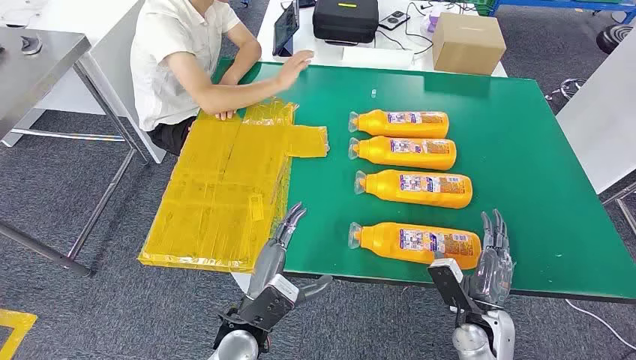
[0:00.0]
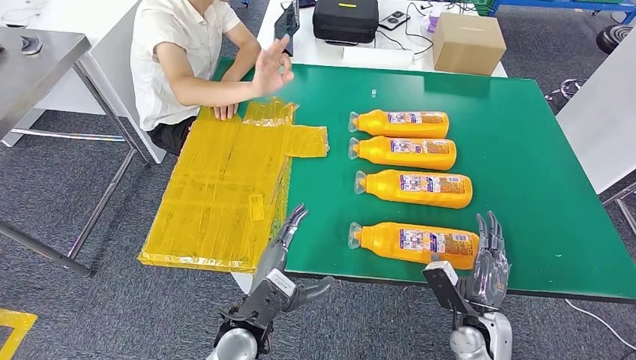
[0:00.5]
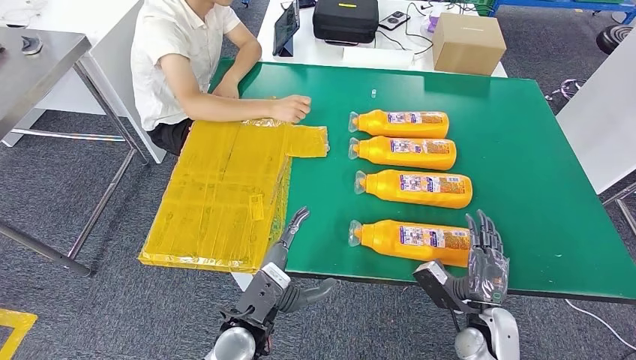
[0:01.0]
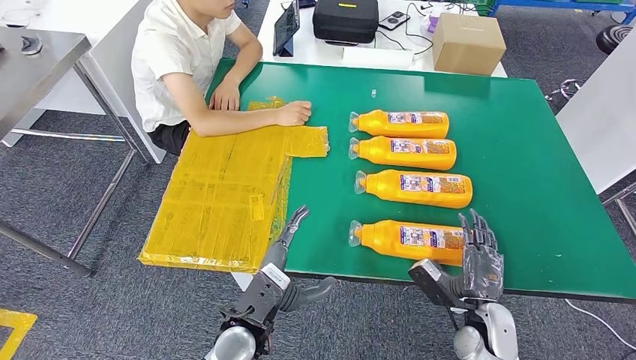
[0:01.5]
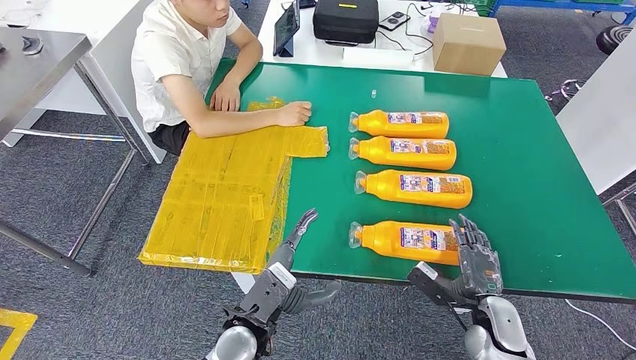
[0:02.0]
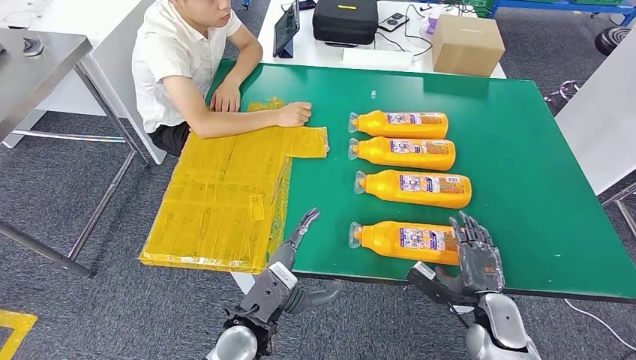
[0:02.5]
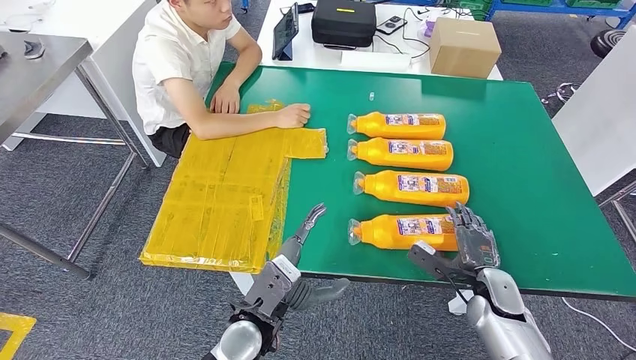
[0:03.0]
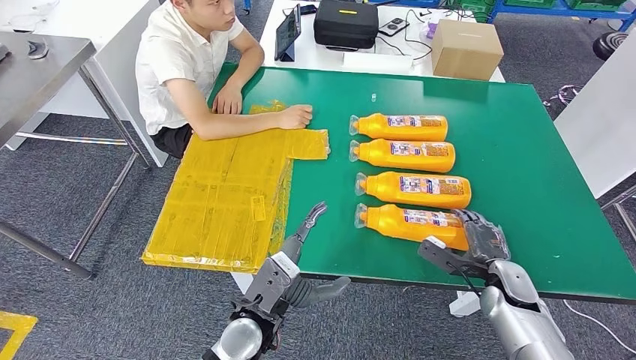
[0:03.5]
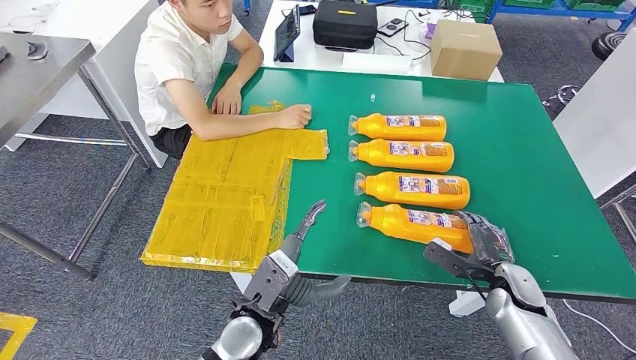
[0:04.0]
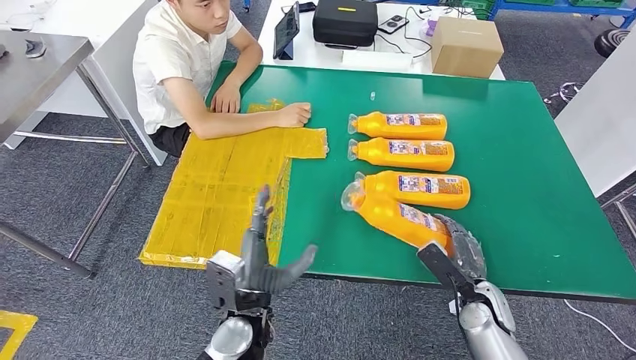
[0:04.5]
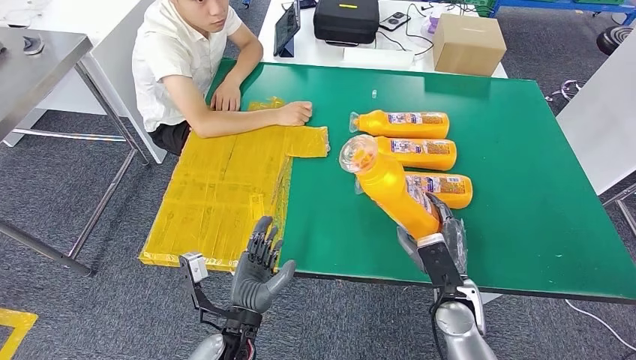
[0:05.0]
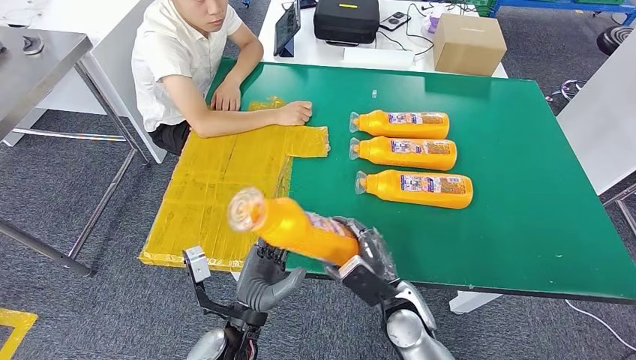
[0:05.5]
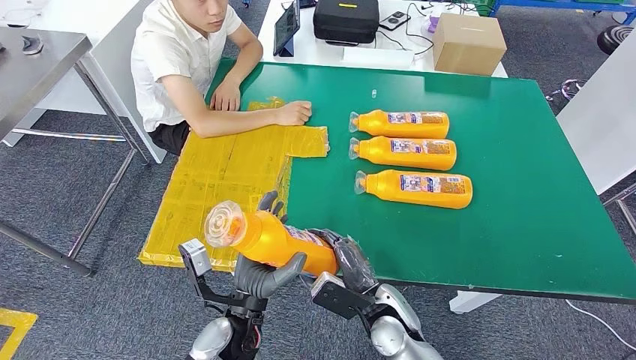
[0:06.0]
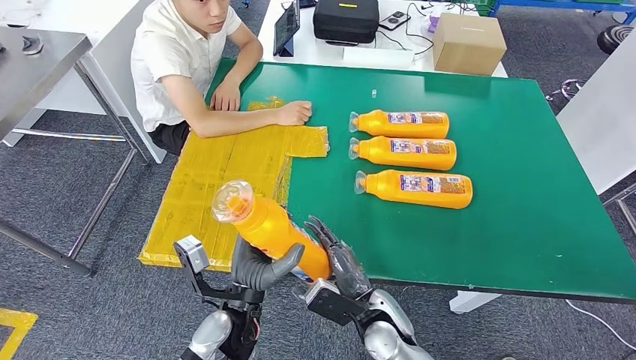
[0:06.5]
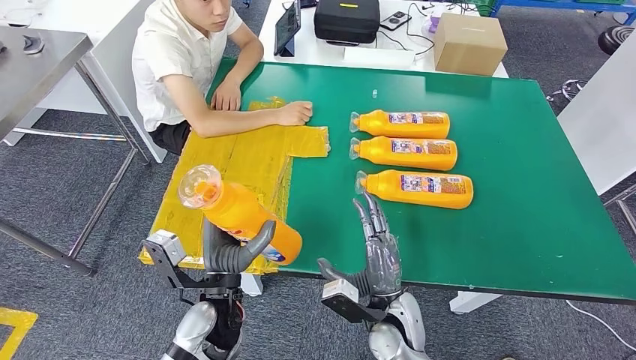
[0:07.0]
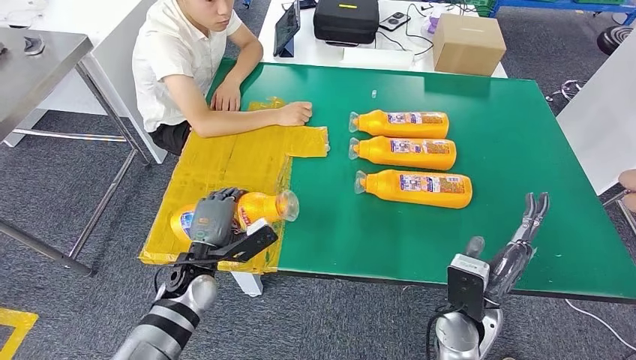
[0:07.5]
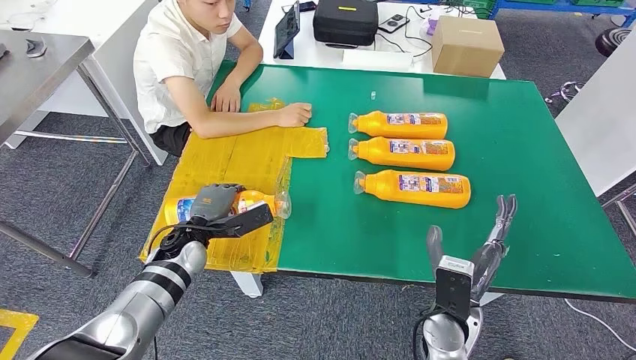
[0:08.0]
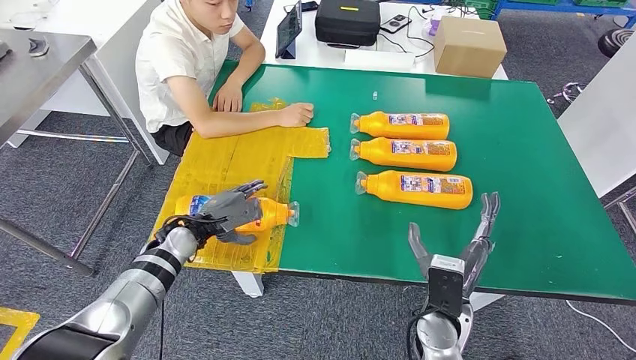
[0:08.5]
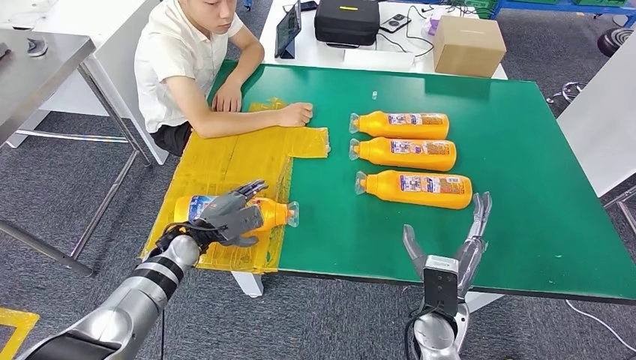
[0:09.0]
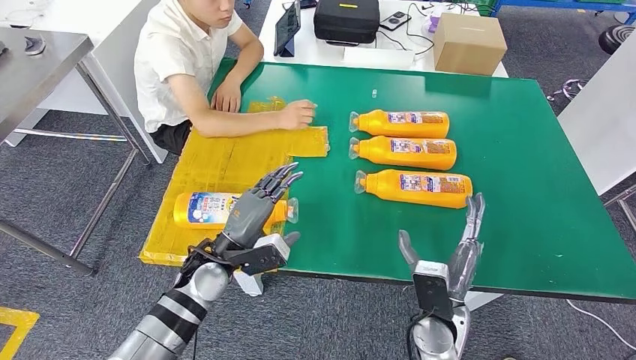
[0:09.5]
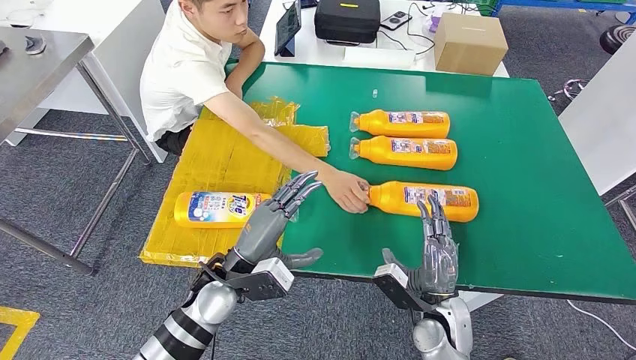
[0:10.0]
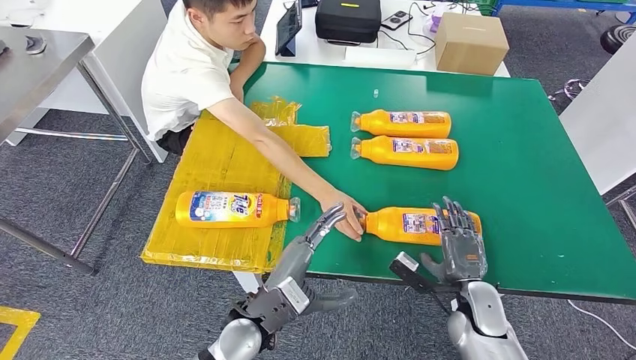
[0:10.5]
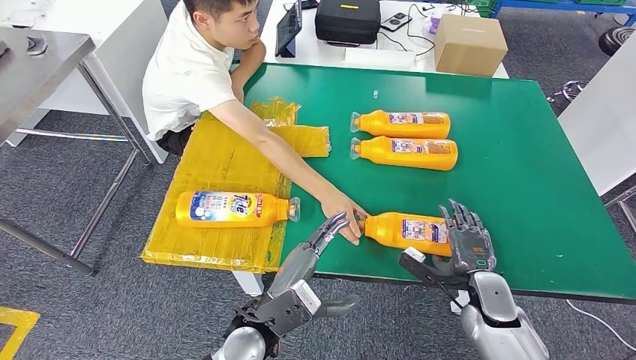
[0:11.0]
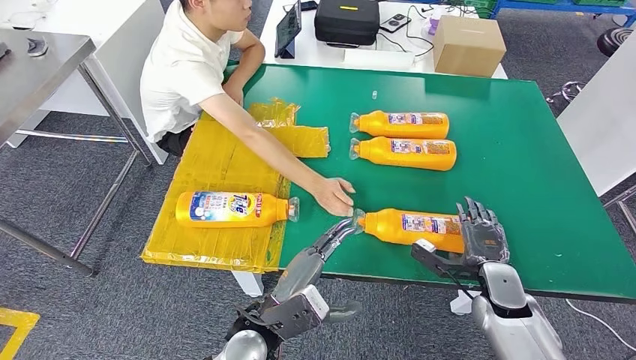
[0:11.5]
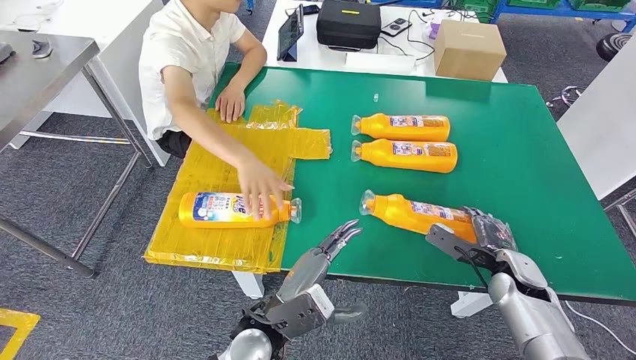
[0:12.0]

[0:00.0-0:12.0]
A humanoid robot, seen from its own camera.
Step, 0:00.0 to 0:05.5: Take the fast-moving consumer goods bottle from the table.
Step, 0:06.0 to 0:08.5: Flip the fast-moving consumer goods bottle to the front side.

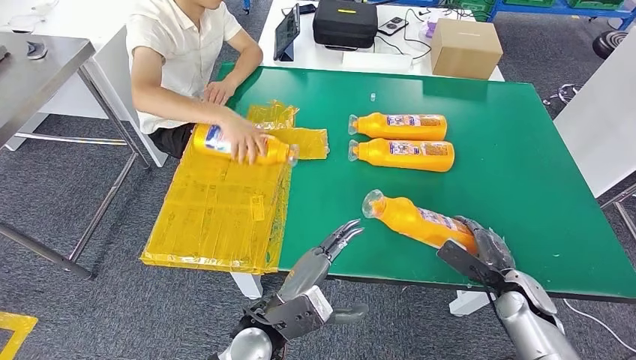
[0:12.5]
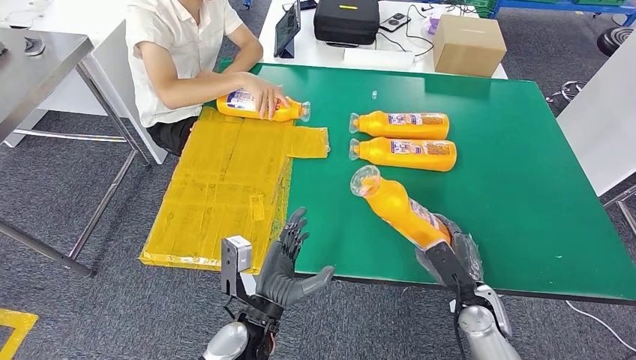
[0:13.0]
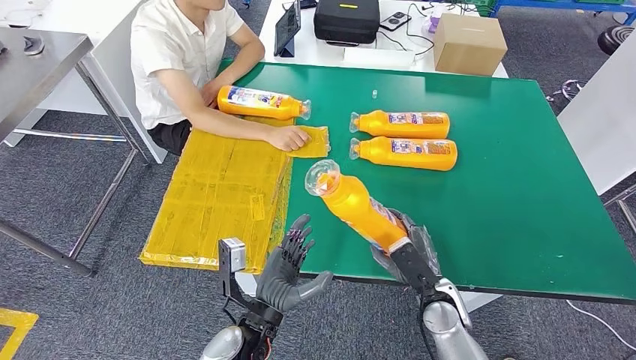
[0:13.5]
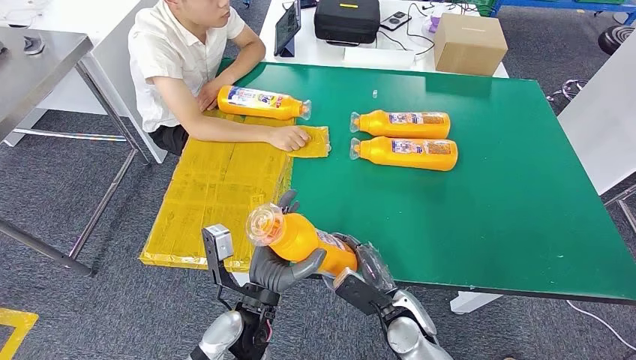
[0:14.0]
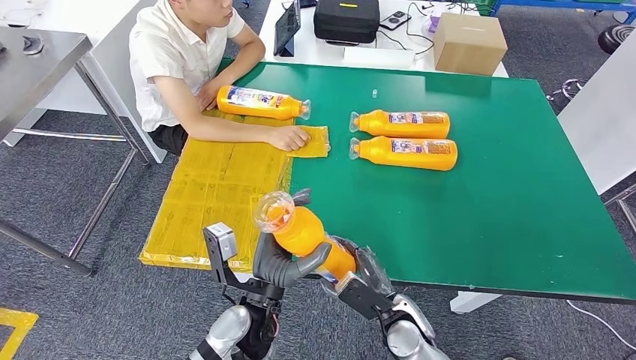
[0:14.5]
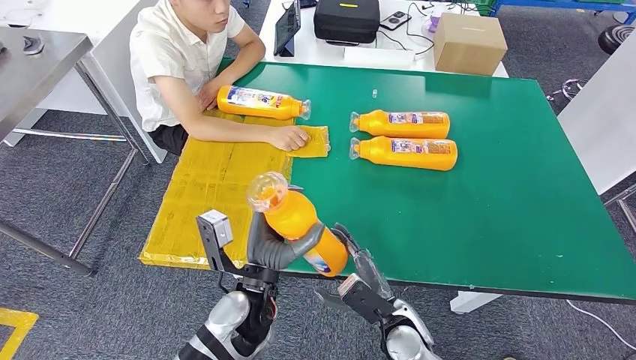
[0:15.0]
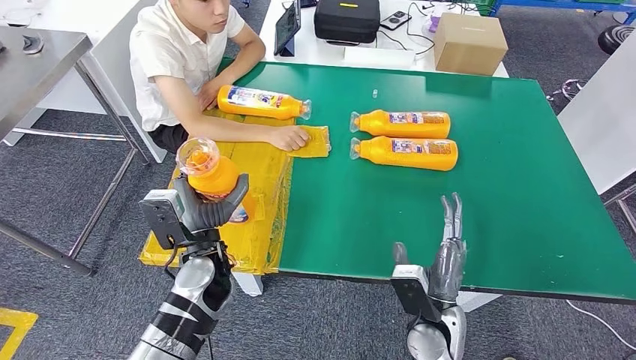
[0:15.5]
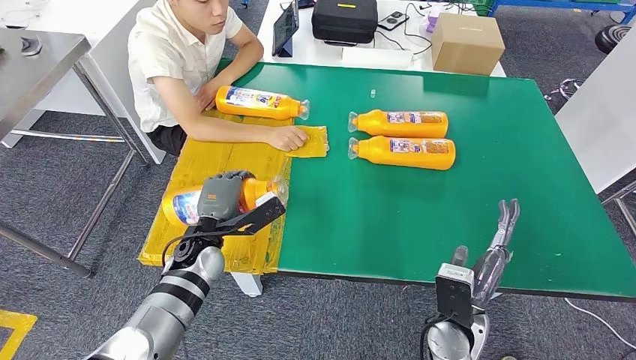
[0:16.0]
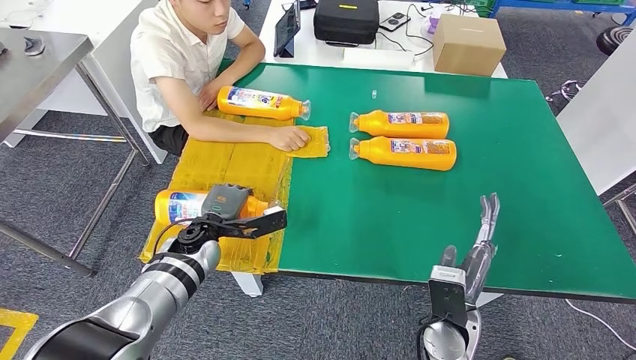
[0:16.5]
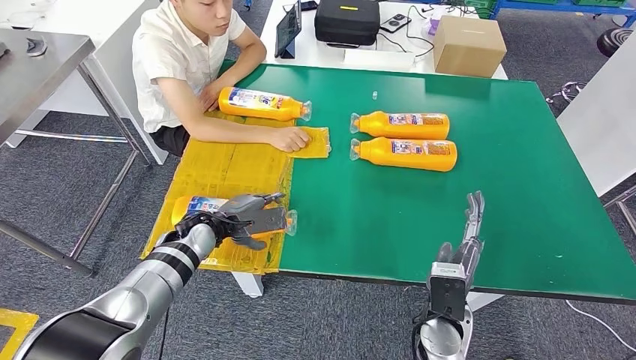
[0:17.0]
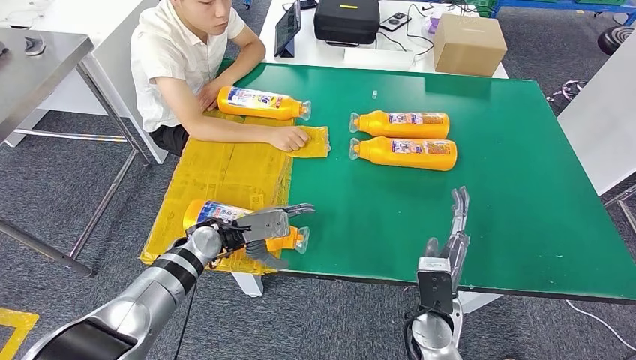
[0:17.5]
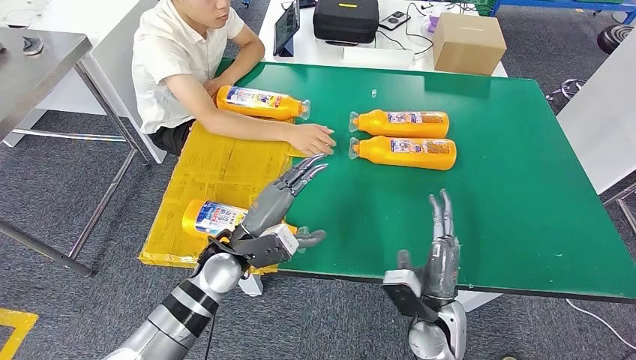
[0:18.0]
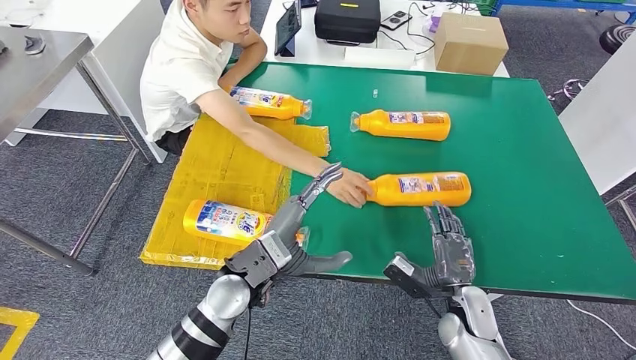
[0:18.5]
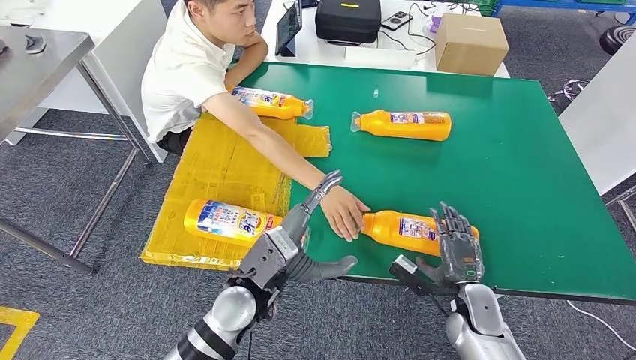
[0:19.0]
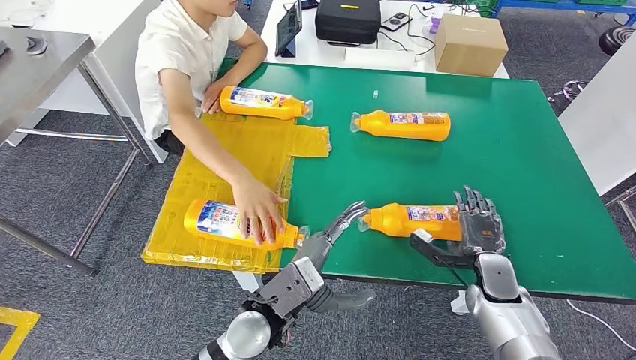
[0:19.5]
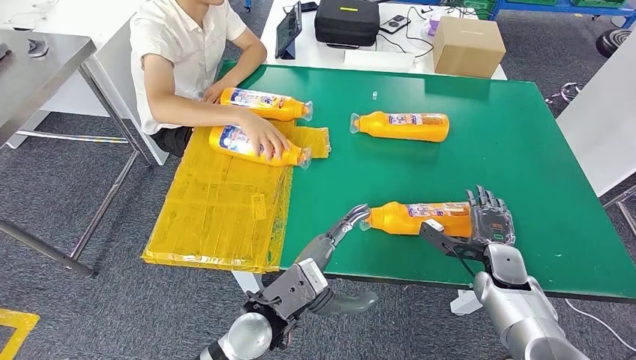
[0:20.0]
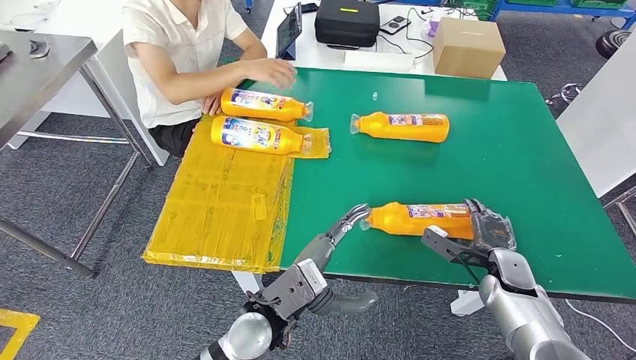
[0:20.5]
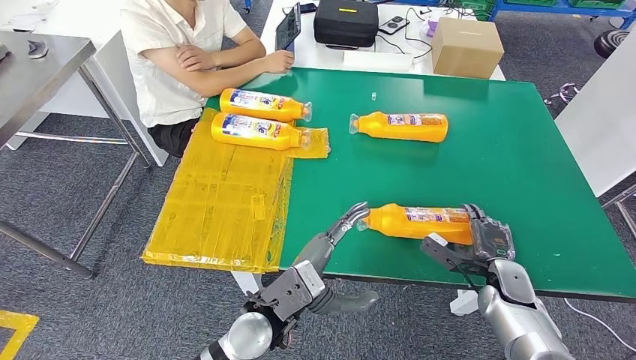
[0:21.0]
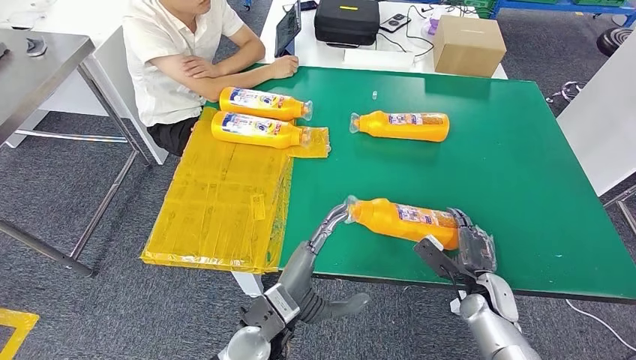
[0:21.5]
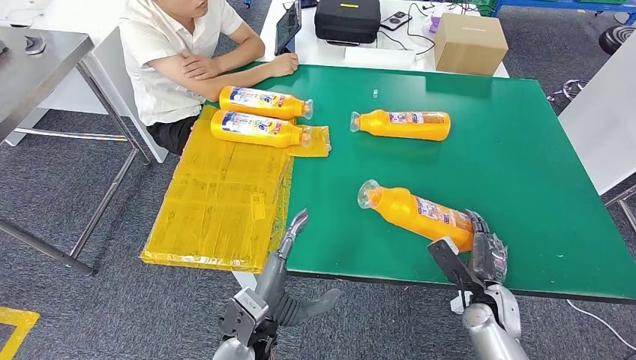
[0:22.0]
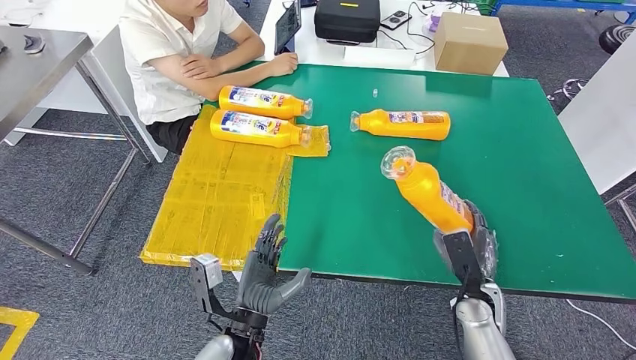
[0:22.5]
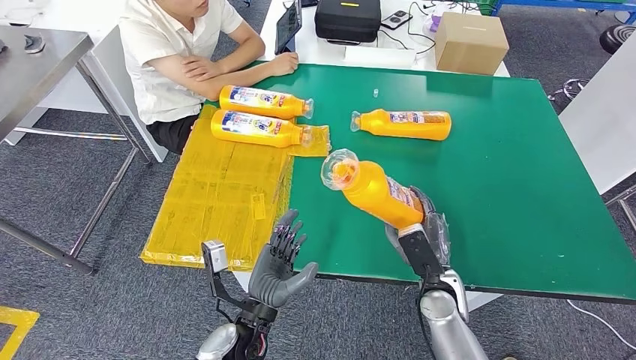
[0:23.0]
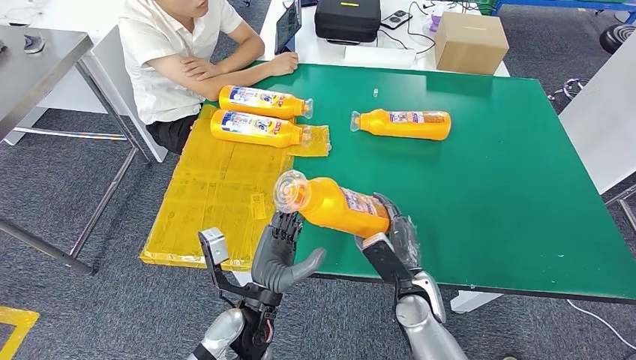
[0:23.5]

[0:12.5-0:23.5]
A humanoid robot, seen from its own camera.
Step, 0:13.5 to 0:17.0: Flip the fast-moving consumer goods bottle to the front side.
Step, 0:17.5 to 0:22.0: Pick up the fast-moving consumer goods bottle from the table.
0:14.5 to 0:16.0: The right hand goes approximately 10 cm upward and to the right; the left hand moves forward and to the left, approximately 15 cm.
0:16.0 to 0:18.0: The left hand is displaced to the right by approximately 5 cm.
0:20.0 to 0:21.5: The right hand moves approximately 5 cm.
0:21.5 to 0:23.5: The right hand shifts some 15 cm to the left.
